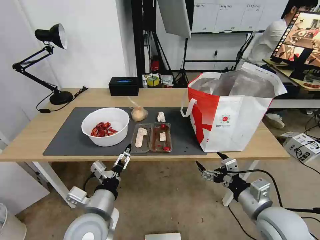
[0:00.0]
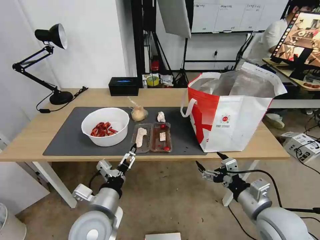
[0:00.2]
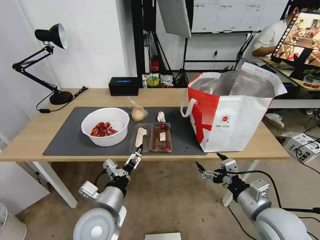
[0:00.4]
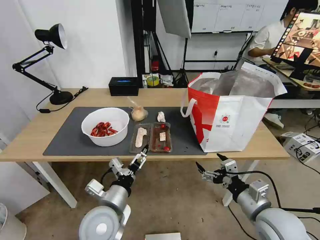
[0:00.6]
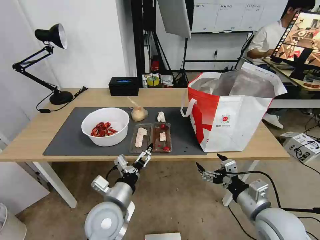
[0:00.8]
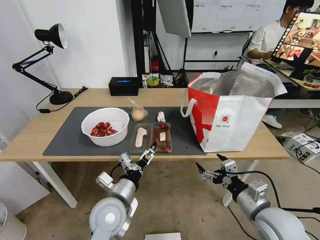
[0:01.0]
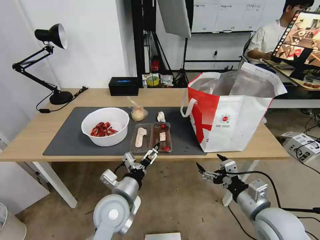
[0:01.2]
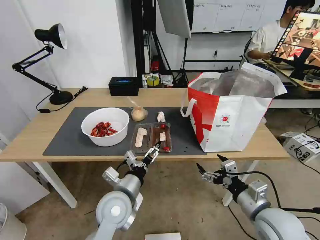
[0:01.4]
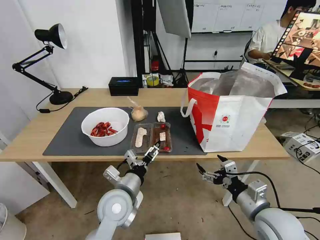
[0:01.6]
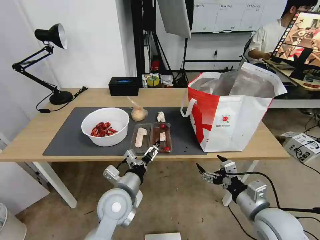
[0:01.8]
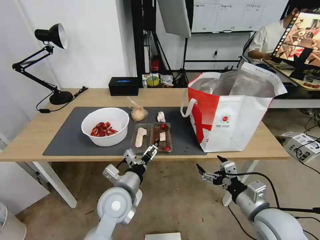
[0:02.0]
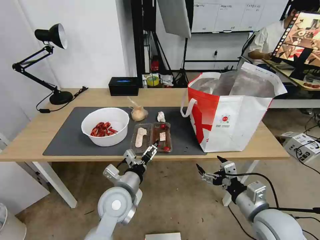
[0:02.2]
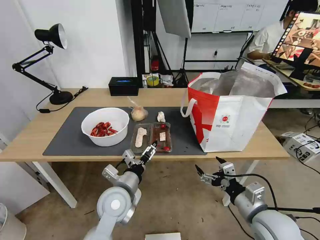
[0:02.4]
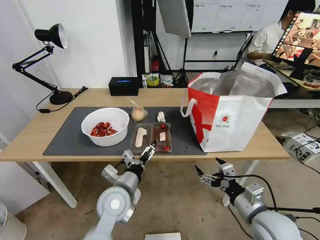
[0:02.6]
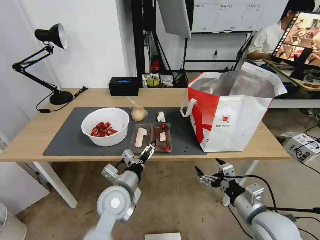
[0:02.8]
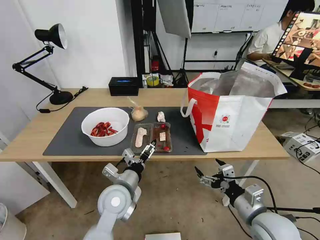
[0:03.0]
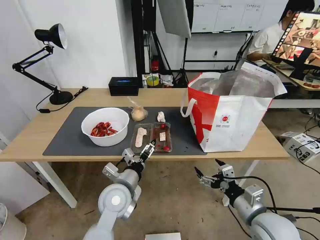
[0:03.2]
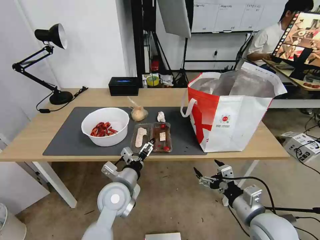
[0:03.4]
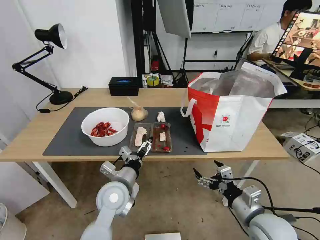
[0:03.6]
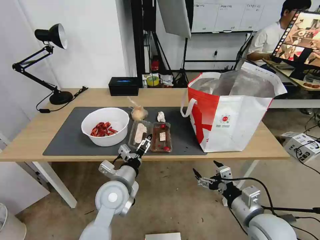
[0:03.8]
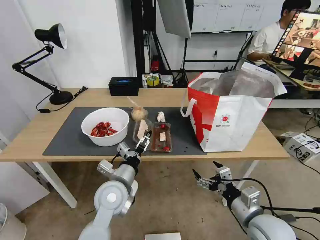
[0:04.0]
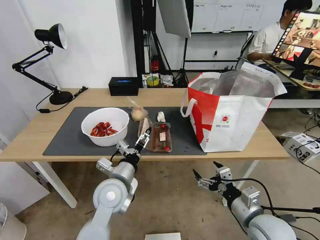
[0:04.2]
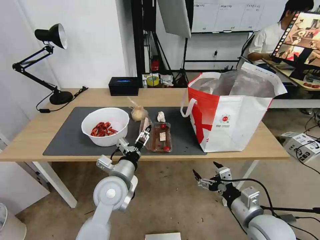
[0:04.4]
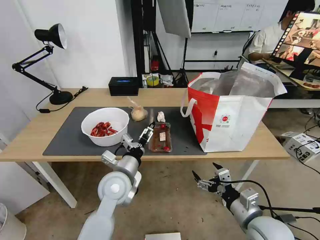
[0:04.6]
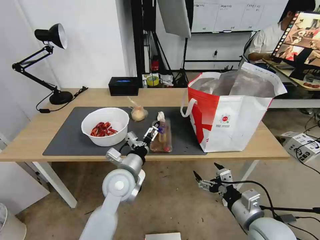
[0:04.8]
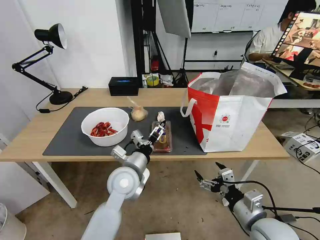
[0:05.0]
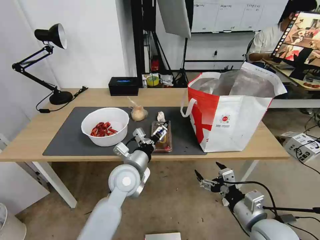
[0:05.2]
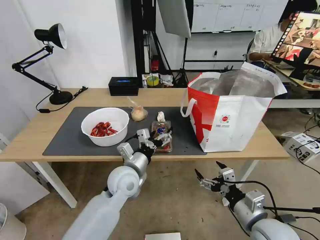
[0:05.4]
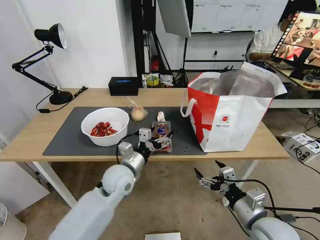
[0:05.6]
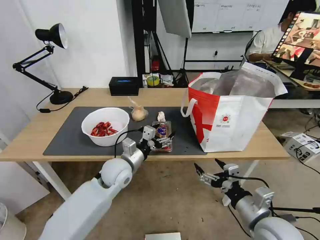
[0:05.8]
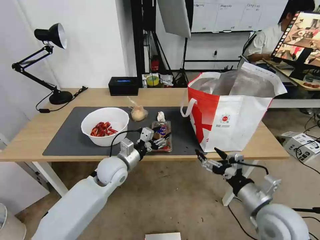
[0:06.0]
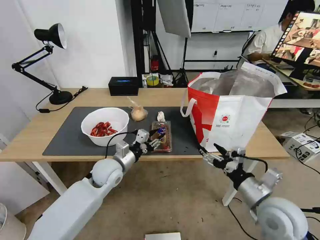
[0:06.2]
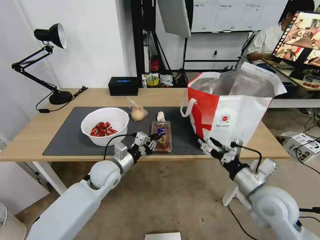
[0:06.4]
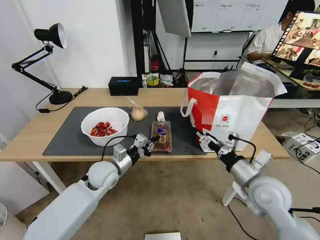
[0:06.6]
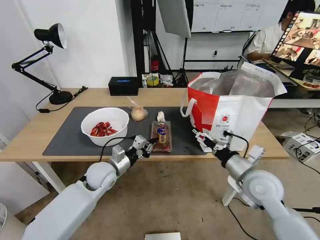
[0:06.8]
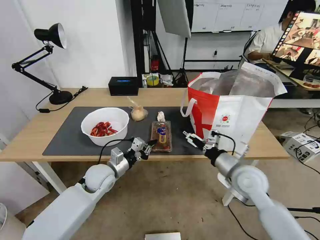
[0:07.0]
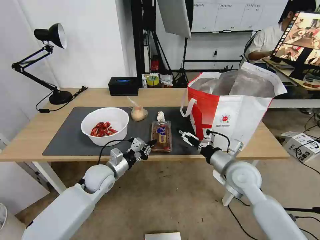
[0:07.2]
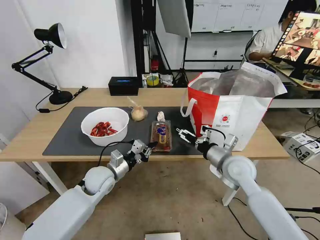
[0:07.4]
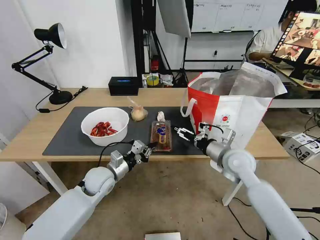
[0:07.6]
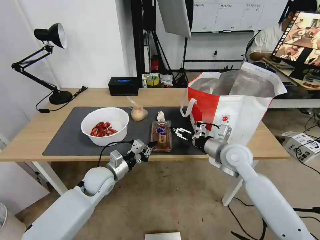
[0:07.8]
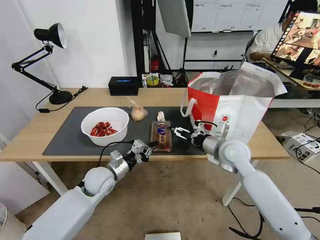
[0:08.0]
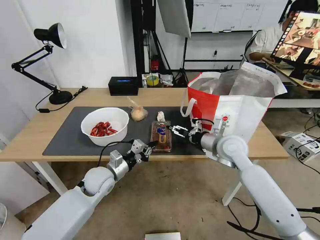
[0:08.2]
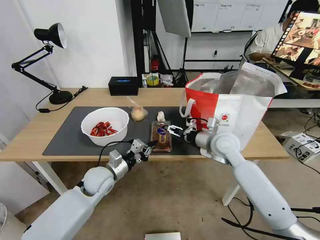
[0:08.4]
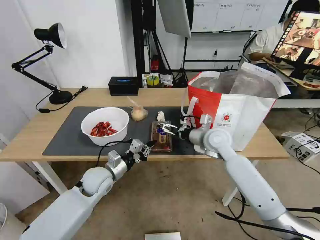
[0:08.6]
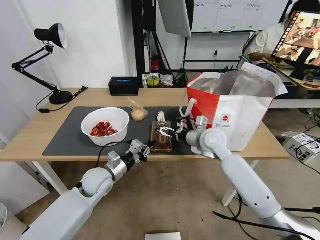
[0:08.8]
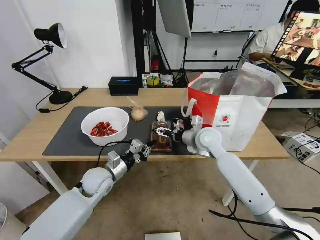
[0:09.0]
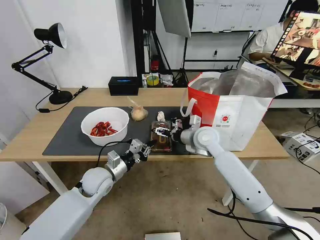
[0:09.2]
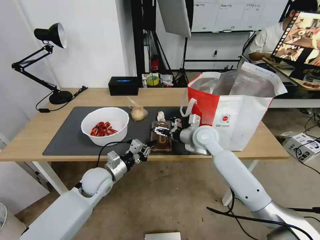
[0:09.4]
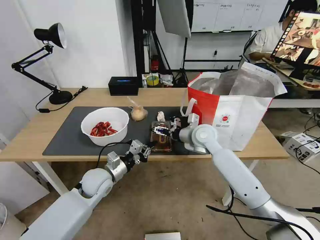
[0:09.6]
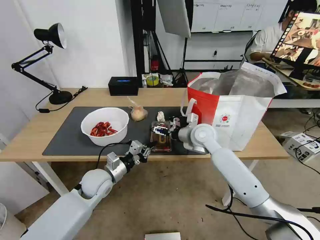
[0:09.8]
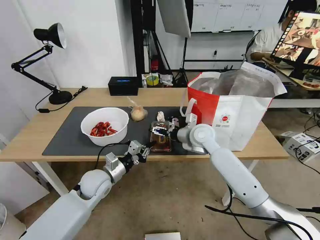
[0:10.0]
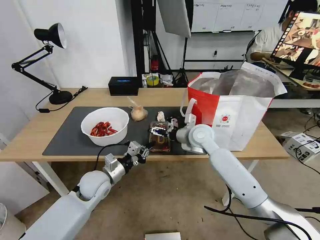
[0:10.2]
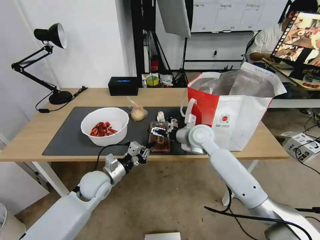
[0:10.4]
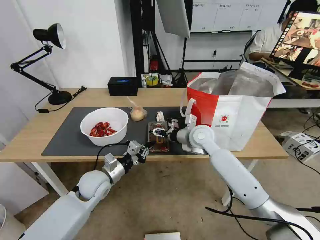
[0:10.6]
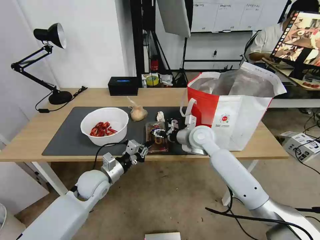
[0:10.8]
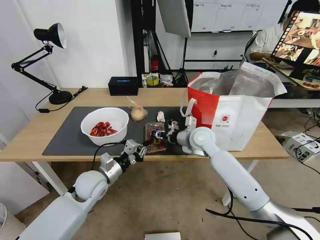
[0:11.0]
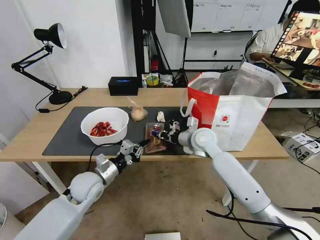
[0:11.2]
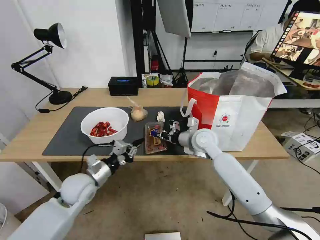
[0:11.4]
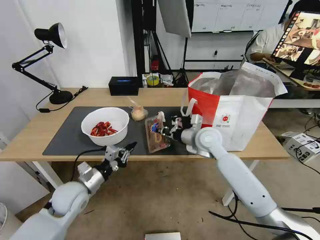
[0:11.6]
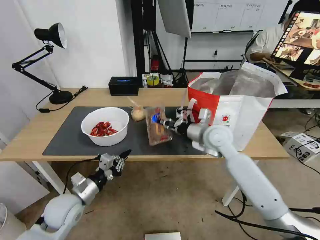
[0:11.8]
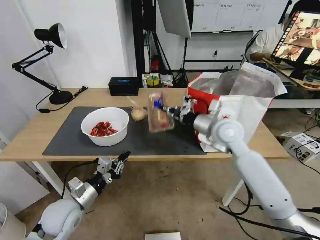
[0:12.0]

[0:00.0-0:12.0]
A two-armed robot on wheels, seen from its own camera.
Task of the whole recording: Pick up the trash from the table and place it into the takeout bag.
0:00.0 to 0:01.6: The left gripper heads forward, covering roughly 5 cm.
0:01.6 to 0:04.4: There are only small adjustments of the grippers.
0:04.4 to 0:06.0: The left gripper shifts some 10 cm forward, and closes up.
0:06.0 to 0:07.6: The right gripper shifts some 15 cm forward, while the left gripper heads to the left, covering roughly 5 cm, and closes.
0:07.6 to 0:09.0: The right gripper goes roughly 10 cm forward and to the left.
0:09.0 to 0:10.4: The grippers move only a little.
0:10.4 to 0:12.0: The right gripper is displaced upward and to the right by approximately 10 cm, and closes up; the left gripper goes roughly 10 cm backward and to the left.

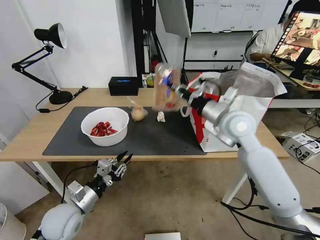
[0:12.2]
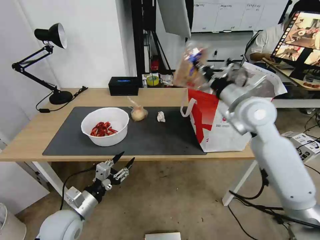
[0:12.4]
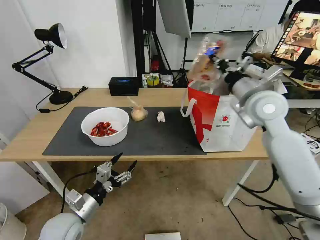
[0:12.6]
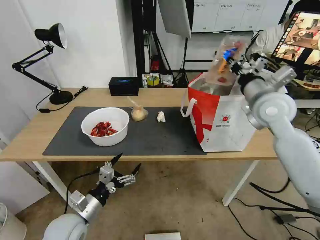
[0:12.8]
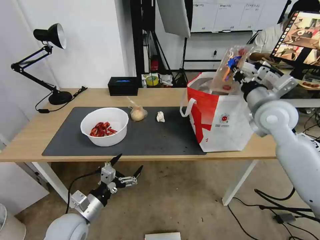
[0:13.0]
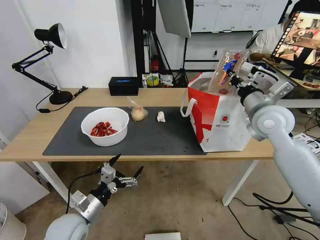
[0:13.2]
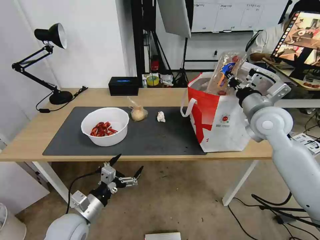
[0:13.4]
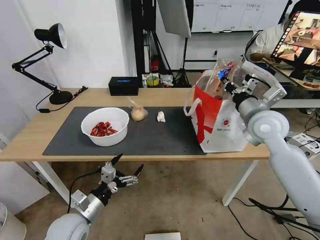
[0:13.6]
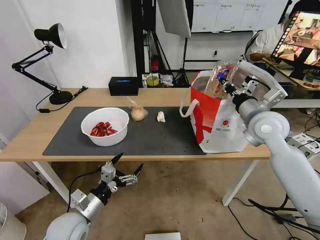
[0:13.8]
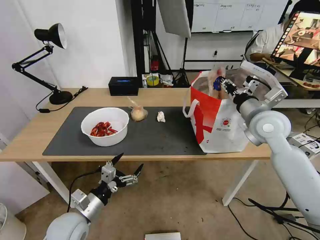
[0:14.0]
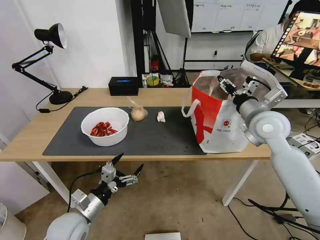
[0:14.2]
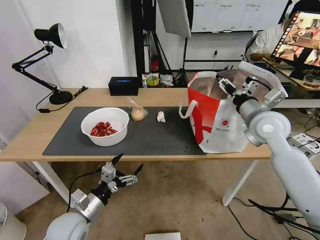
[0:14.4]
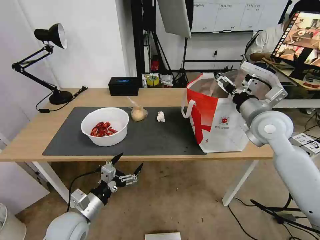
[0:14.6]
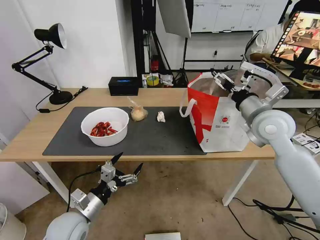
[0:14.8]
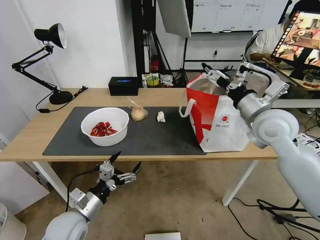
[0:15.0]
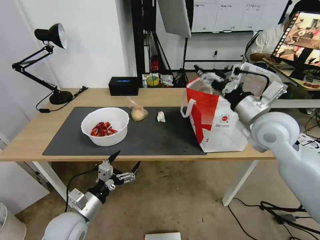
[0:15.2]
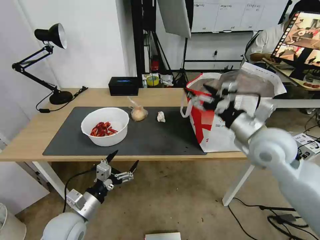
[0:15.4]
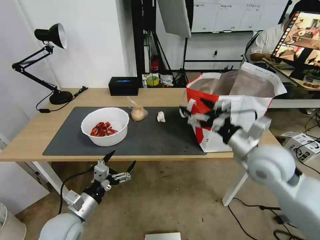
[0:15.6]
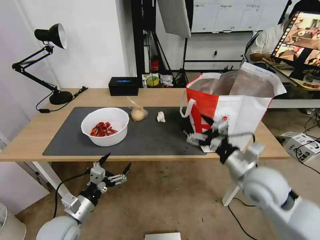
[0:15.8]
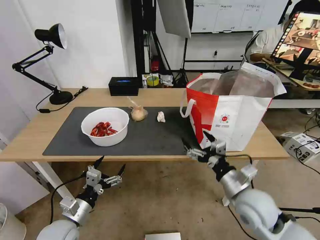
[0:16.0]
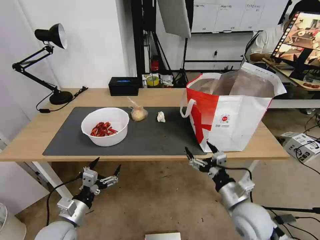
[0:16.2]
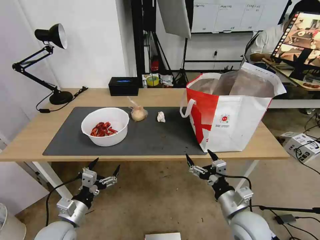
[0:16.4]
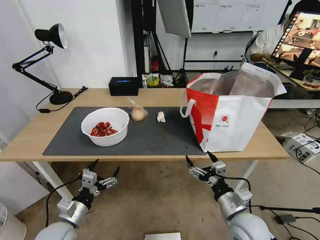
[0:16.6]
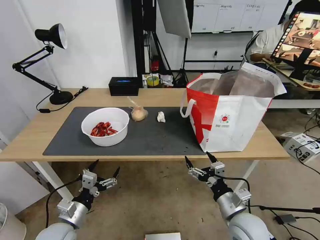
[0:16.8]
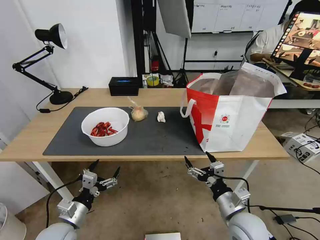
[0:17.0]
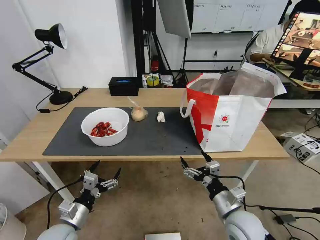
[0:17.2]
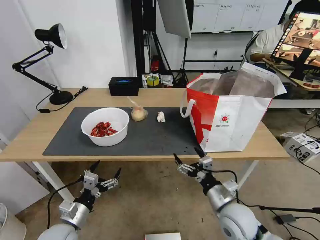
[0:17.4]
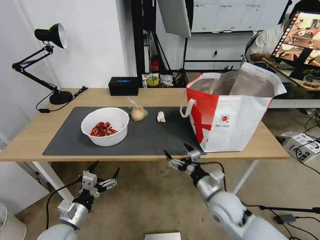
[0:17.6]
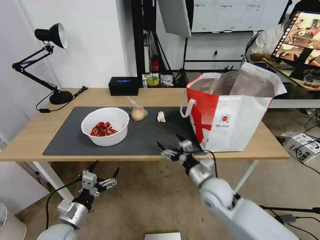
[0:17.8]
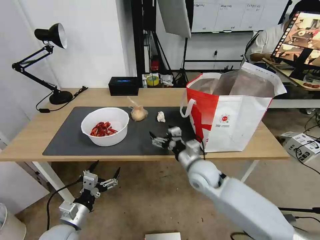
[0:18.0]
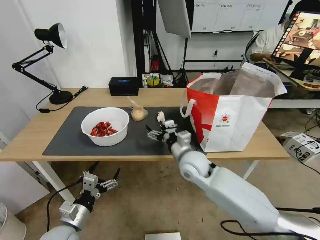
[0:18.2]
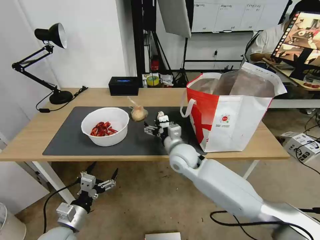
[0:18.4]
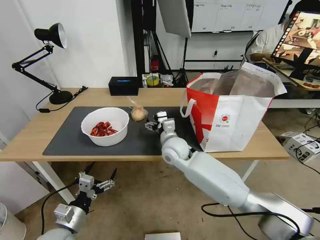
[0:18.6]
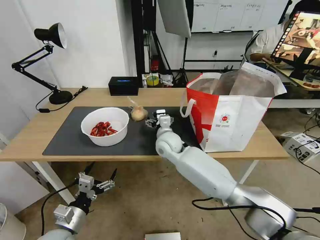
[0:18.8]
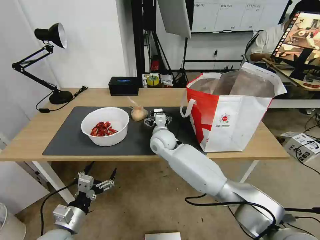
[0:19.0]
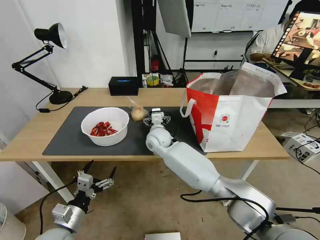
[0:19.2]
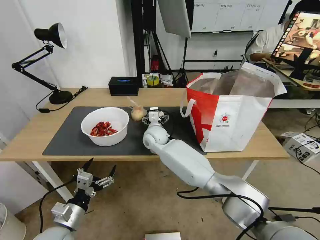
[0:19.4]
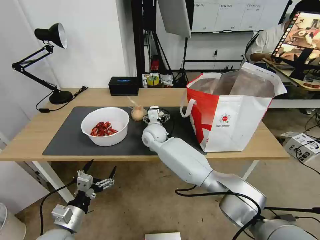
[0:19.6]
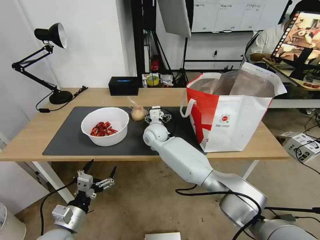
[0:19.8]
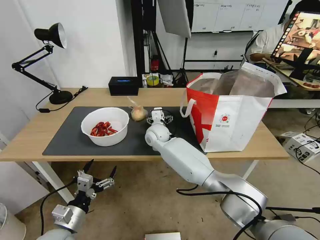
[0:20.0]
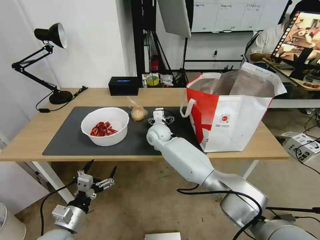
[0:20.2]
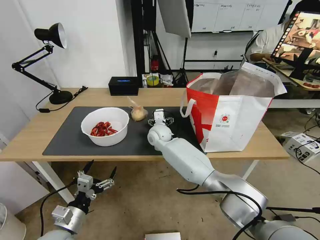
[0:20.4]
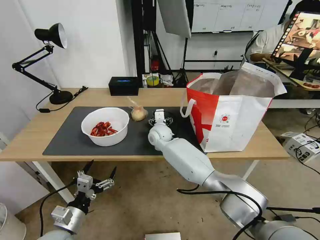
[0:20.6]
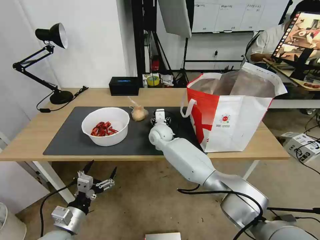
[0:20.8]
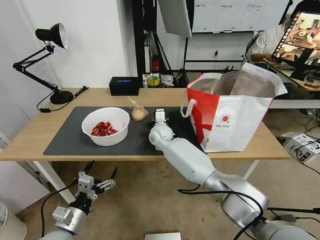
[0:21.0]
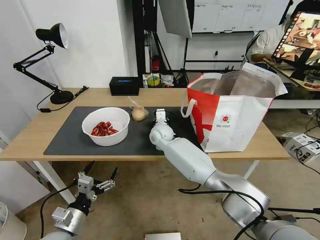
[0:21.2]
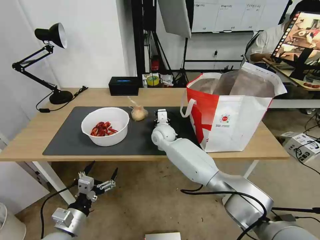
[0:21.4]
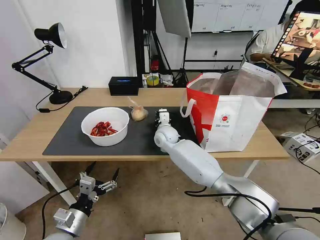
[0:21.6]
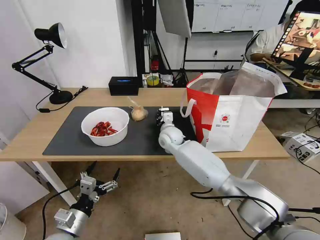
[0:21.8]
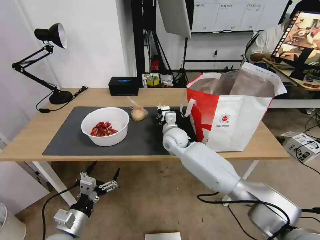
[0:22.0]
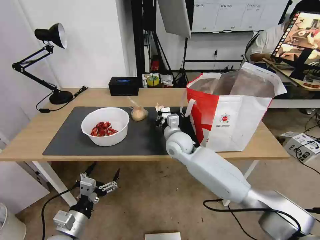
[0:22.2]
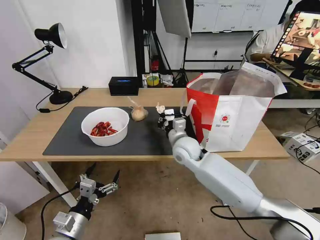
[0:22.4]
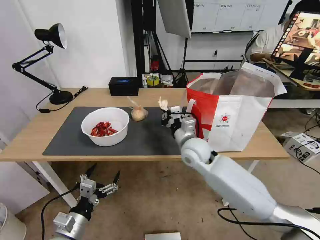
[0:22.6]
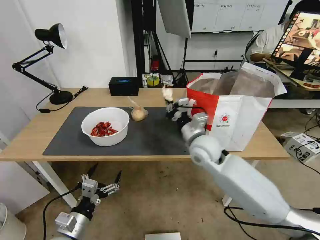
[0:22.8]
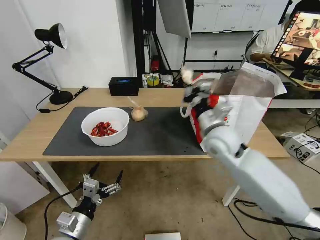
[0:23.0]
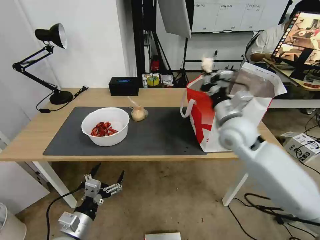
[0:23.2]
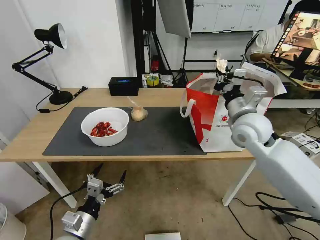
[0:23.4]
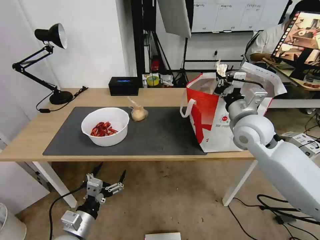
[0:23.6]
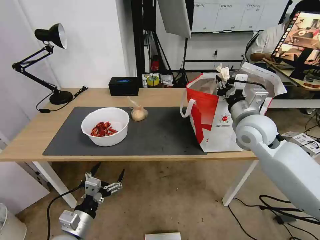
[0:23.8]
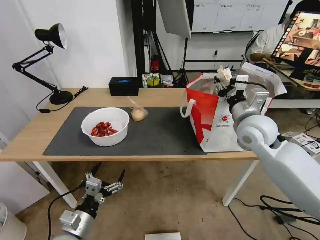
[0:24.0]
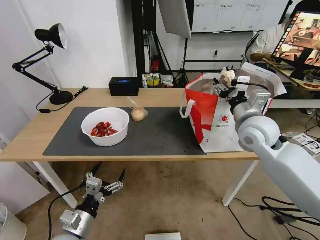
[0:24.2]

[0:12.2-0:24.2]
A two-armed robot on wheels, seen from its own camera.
Task of the whole recording: Pick up the trash from the table and place it into the takeout bag.
0:12.2 to 0:13.8: The right gripper is displaced to the right by some 10 cm, while the left gripper opens.
0:13.8 to 0:15.2: The right gripper shifts by some 5 cm, and opens.
0:15.2 to 0:16.6: The right gripper moves downward and backward, some 30 cm; the left gripper changes place by approximately 5 cm.
0:16.6 to 0:18.2: The right gripper travels forward and to the left by roughly 20 cm.
0:18.2 to 0:19.8: The right gripper travels forward and to the left by about 20 cm.
0:19.8 to 0:21.2: The right gripper closes up.
0:21.2 to 0:22.6: The right gripper is displaced backward, to the right and upward by about 20 cm.
0:22.6 to 0:24.2: The right gripper goes roughly 20 cm to the right and upward, and opens its fingers.
